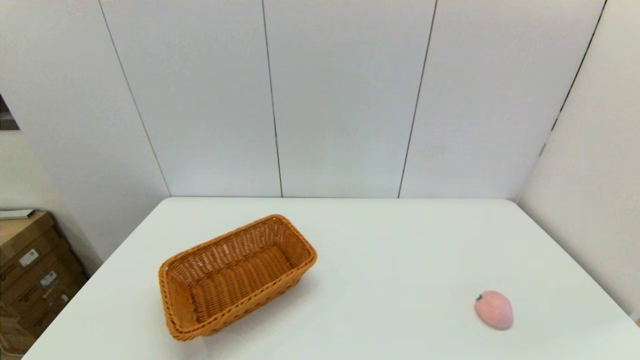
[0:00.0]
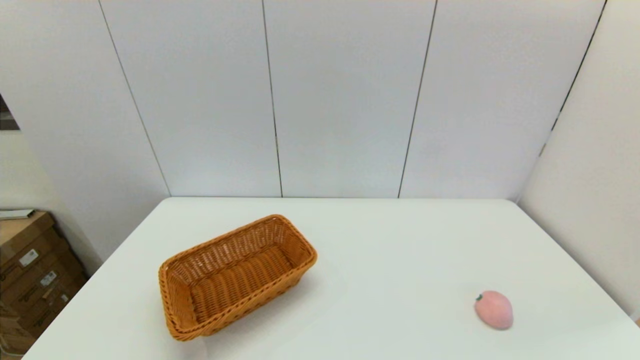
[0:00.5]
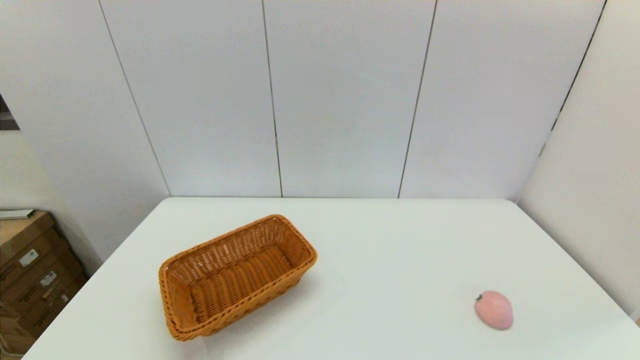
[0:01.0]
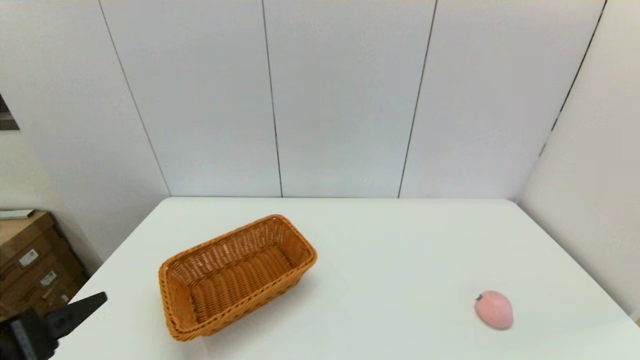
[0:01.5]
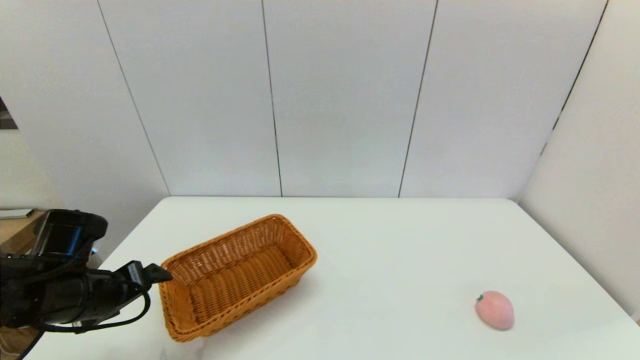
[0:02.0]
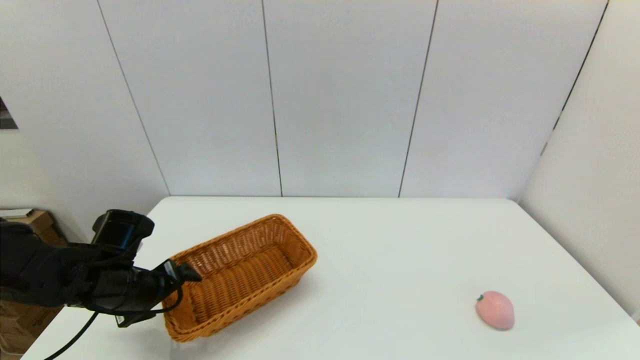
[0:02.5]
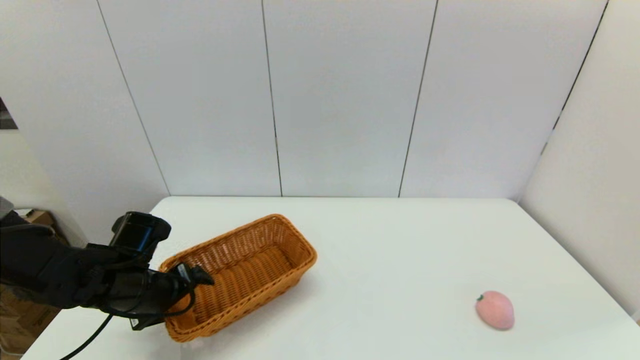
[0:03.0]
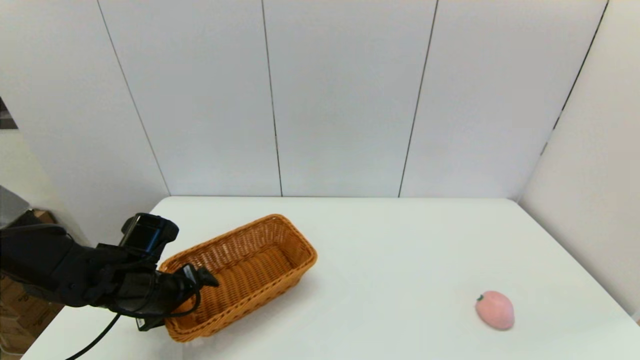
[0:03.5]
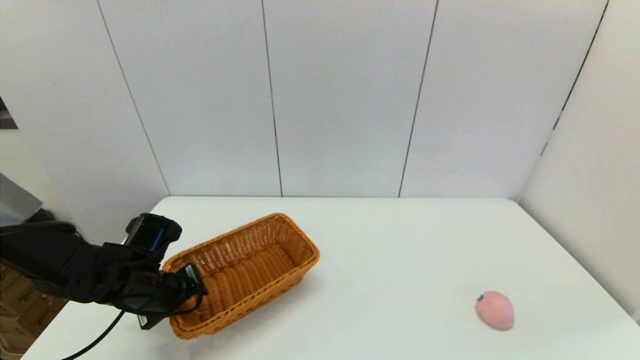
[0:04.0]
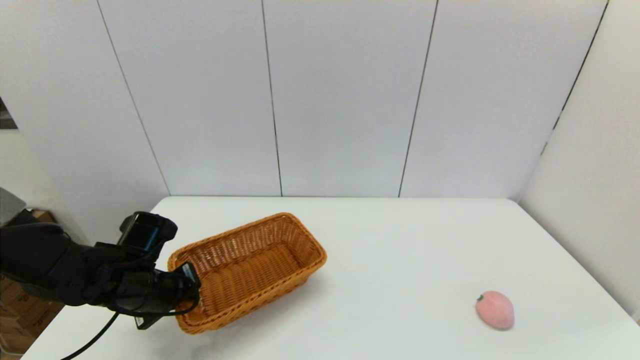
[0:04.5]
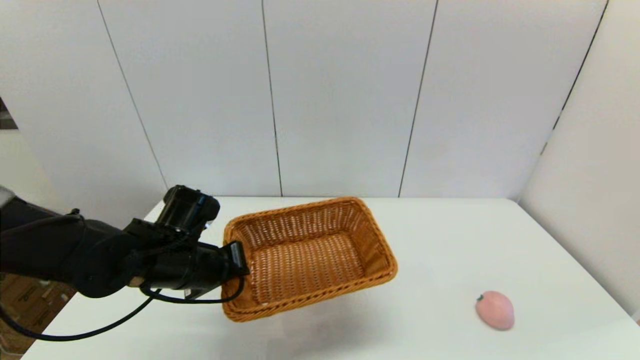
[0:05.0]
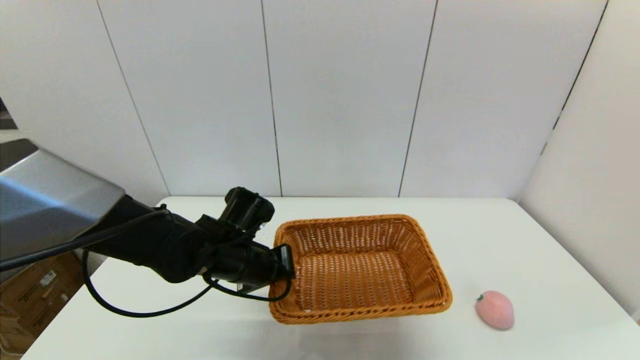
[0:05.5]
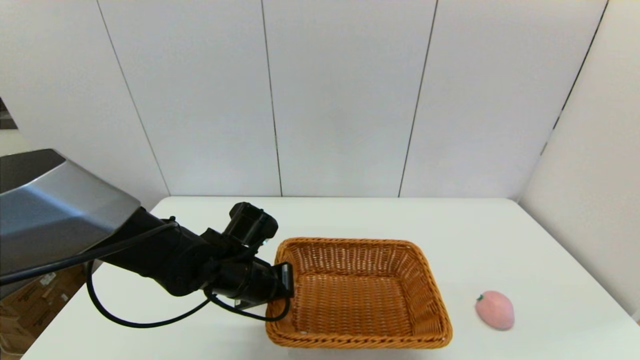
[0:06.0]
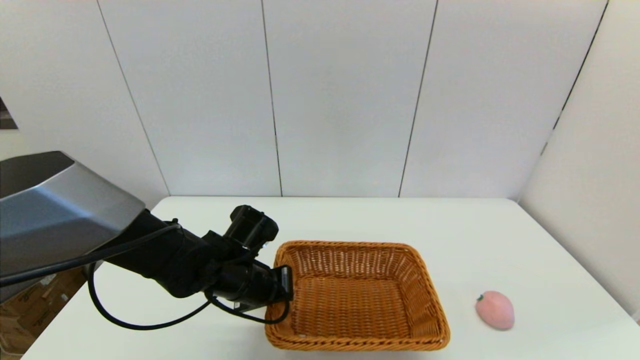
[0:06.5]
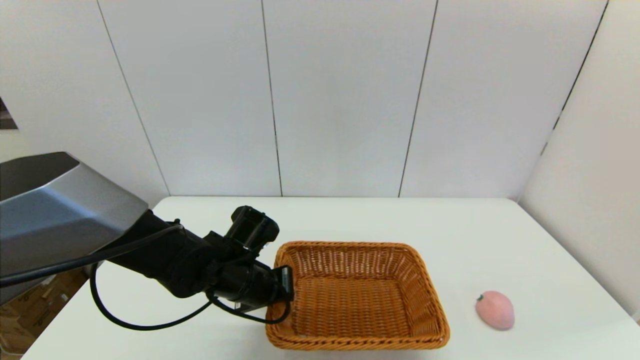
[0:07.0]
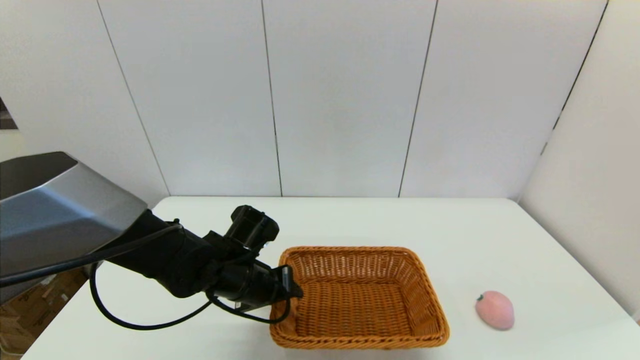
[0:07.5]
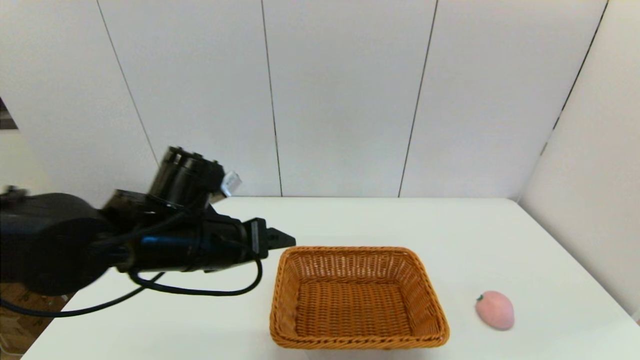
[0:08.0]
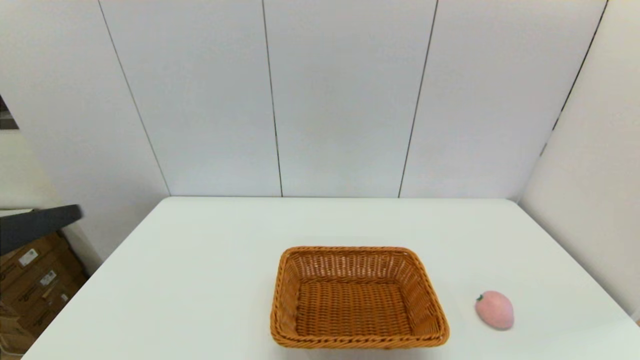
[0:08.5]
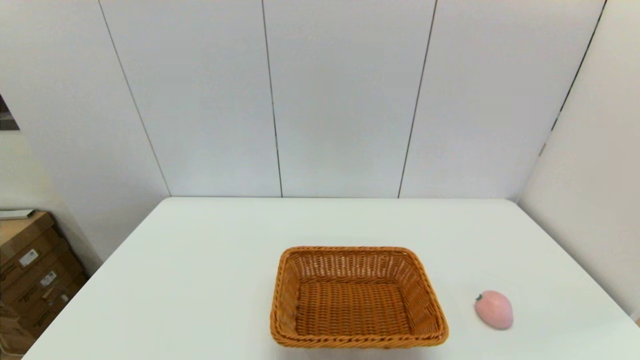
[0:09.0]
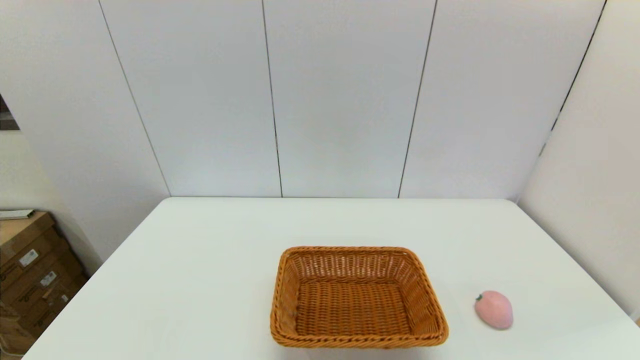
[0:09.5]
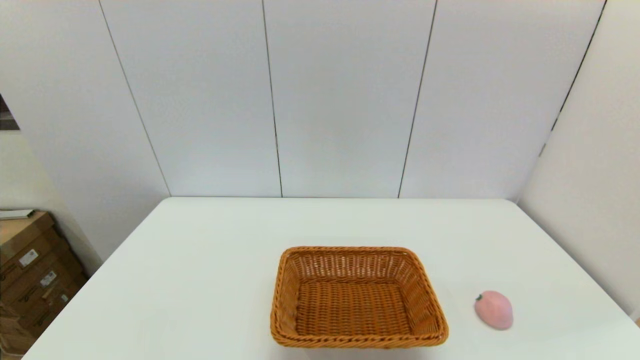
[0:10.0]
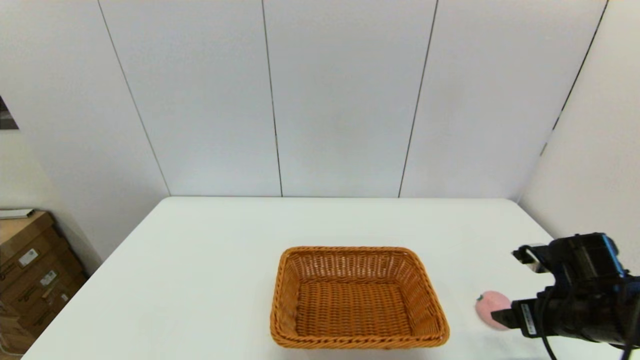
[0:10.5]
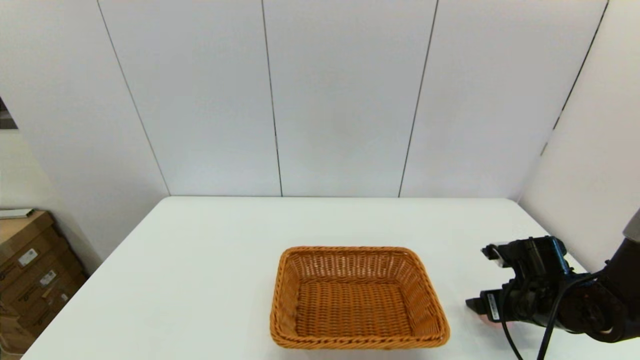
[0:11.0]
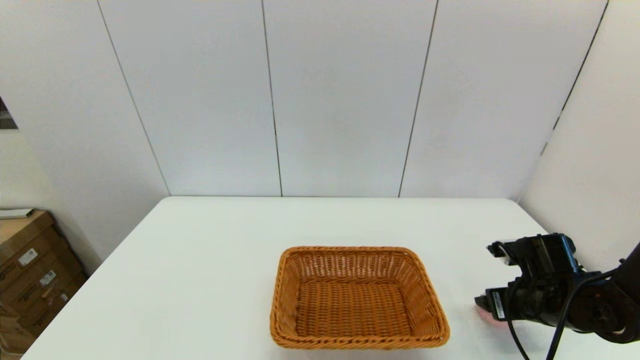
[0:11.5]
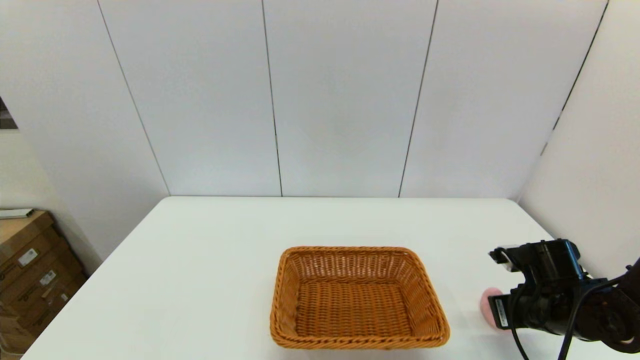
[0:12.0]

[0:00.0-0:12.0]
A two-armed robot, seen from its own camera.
Step, 0:00.0 to 0:04.0: Grasp the light basket with the left gripper.
Step, 0:04.5 to 0:07.5: Place the light basket on the middle of the table with the left gripper.
Step, 0:08.0 to 0:12.0: Grasp the peach with the right gripper.
0:00.0 to 0:02.0: The left gripper moves forward, approximately 25 cm.
0:02.0 to 0:04.0: The left gripper changes place by approximately 10 cm, and closes its fingers.
0:04.0 to 0:06.0: The left gripper goes about 15 cm to the right, and closes.
0:06.0 to 0:08.0: The left gripper moves upward, roughly 10 cm, and opens its fingers.
0:08.0 to 0:10.0: The left gripper shifts approximately 30 cm backward, to the left and downward. The right gripper is displaced forward by approximately 5 cm.
0:10.0 to 0:12.0: The right gripper moves forward and downward, some 25 cm, and closes.

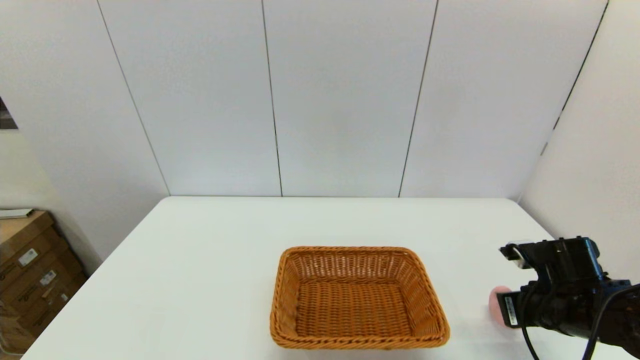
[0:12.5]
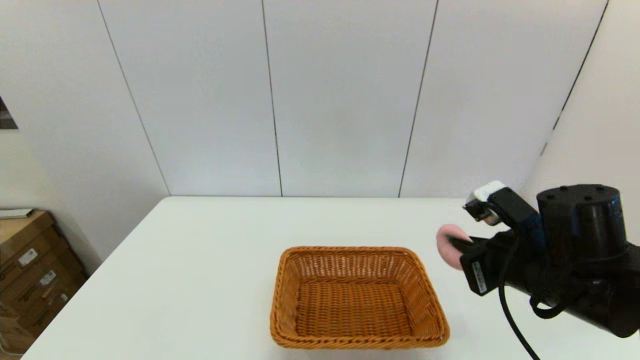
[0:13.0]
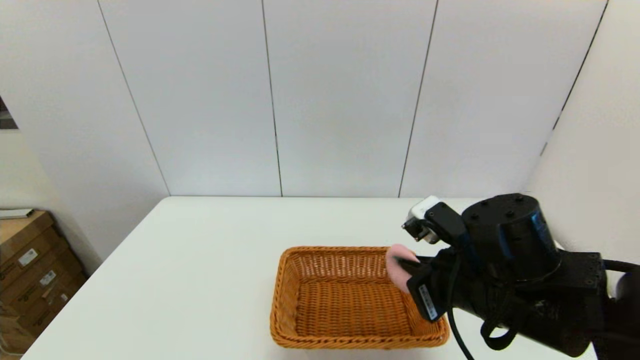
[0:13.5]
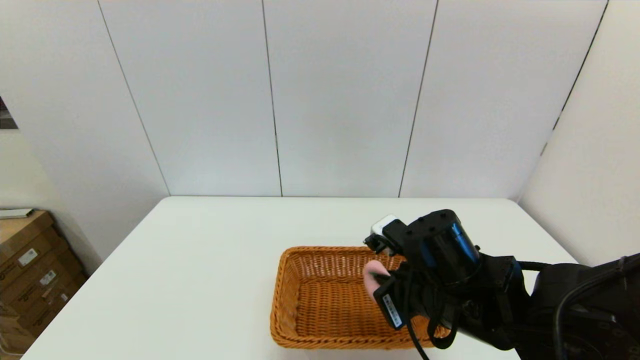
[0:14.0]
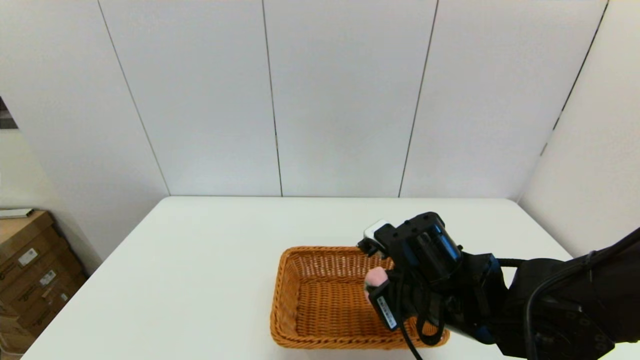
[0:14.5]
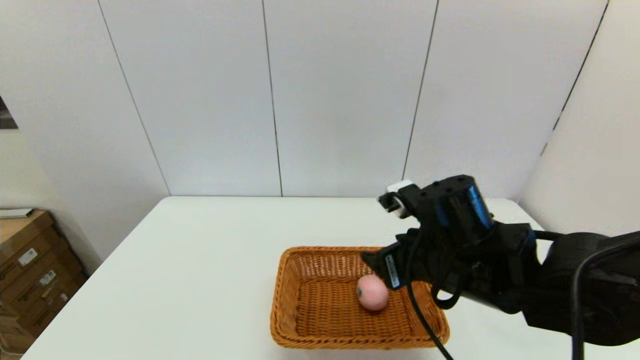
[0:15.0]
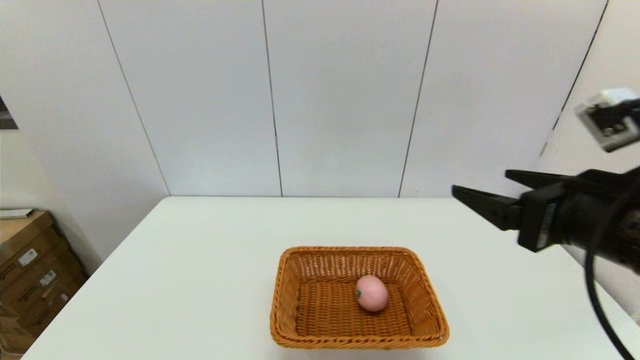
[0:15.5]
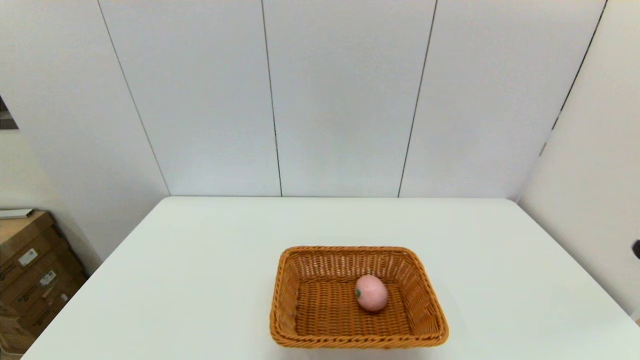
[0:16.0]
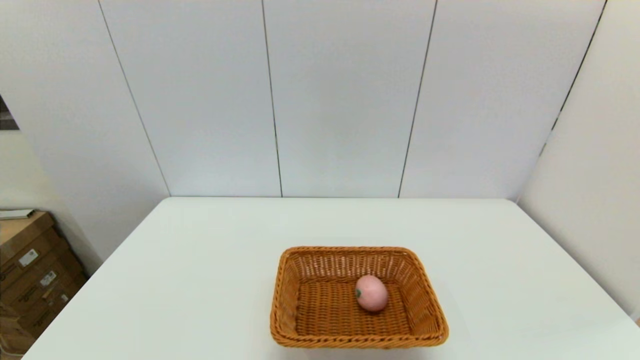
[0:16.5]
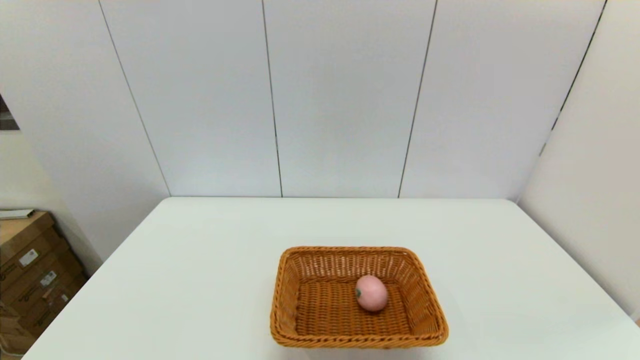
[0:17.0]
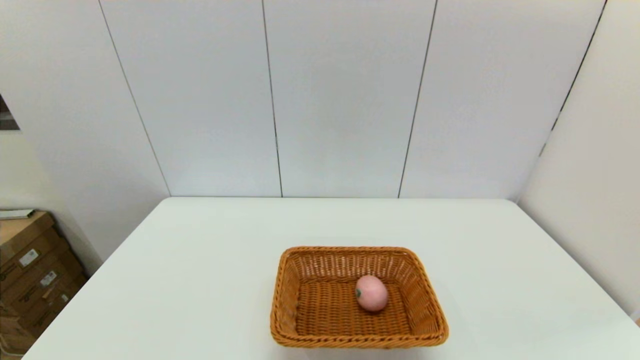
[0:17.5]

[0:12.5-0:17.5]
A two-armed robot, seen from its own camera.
Step, 0:12.5 to 0:14.5: Place the peach into the light basket with the right gripper.
0:12.5 to 0:15.0: The right gripper shifts about 20 cm to the left and upward, and opens its fingers.
0:15.0 to 0:17.5: The right gripper travels backward and to the right by roughly 30 cm.

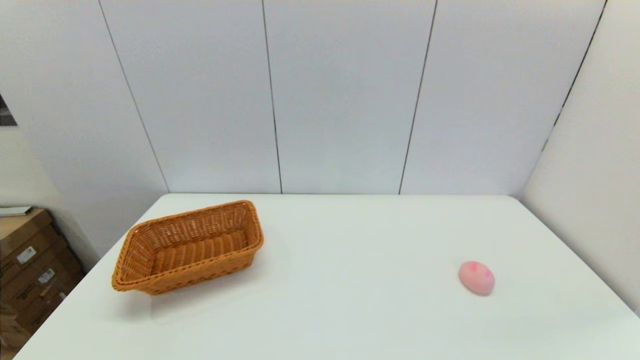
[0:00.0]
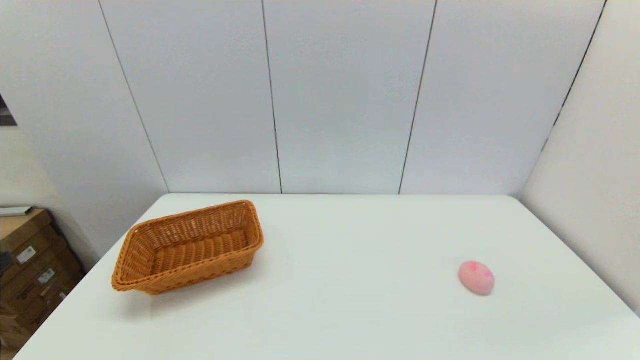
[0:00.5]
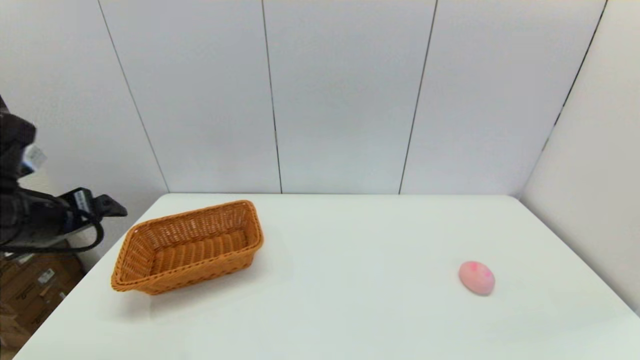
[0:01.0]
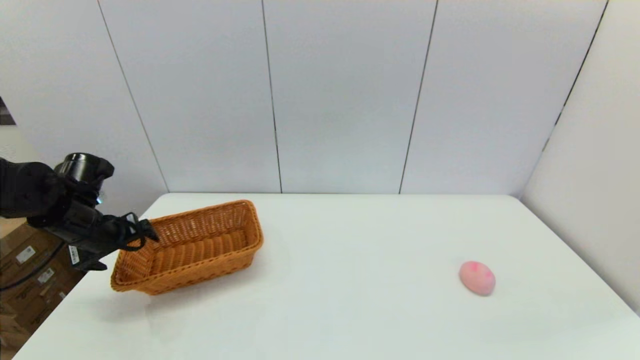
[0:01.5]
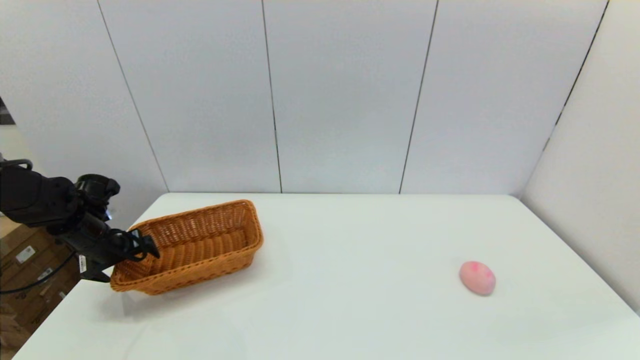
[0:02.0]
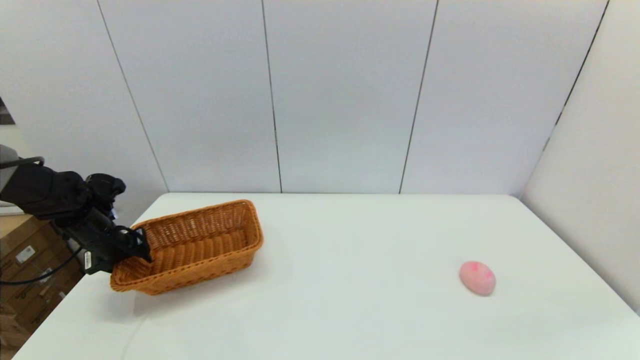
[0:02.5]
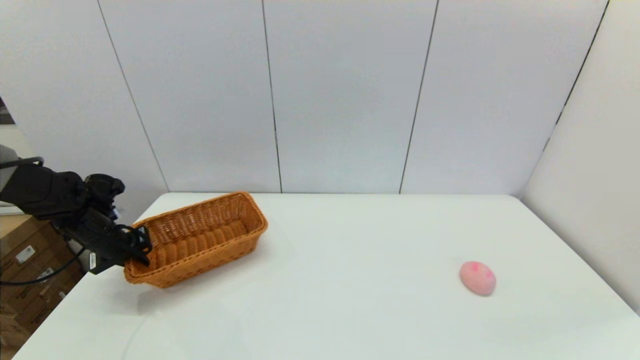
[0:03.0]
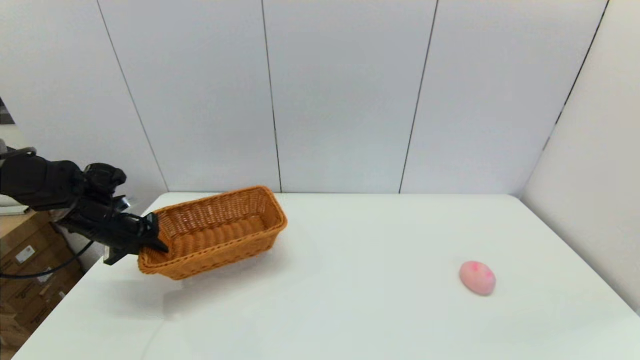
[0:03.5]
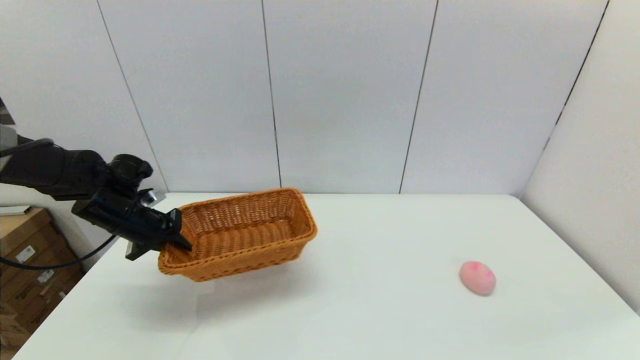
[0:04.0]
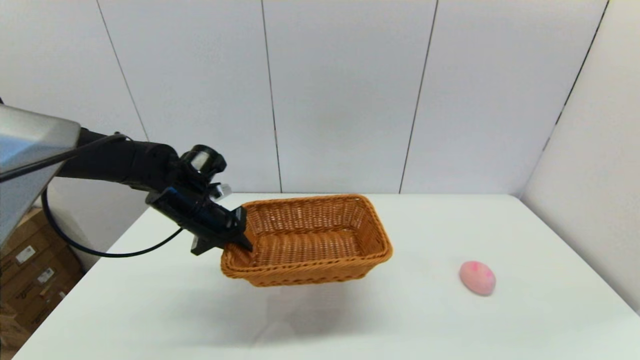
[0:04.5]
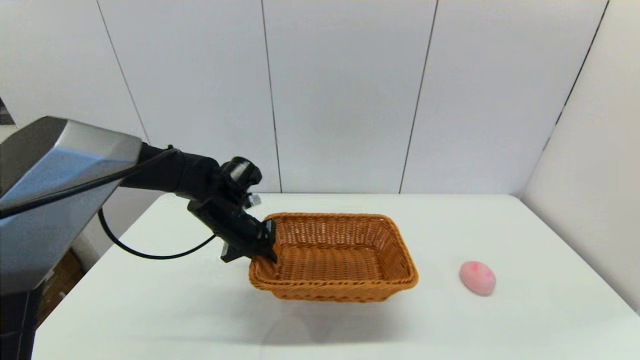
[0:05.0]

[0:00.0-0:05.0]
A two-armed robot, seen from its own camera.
Step, 0:00.0 to 0:02.5: Grasp the light basket with the left gripper.
0:00.0 to 0:02.5: The left gripper goes approximately 40 cm forward, and closes.
0:02.5 to 0:05.0: The left gripper travels to the right by some 25 cm, and closes.
